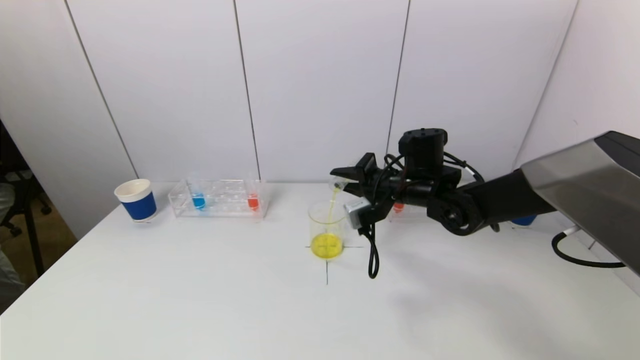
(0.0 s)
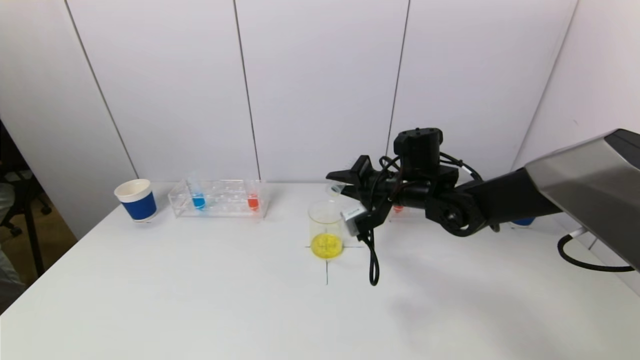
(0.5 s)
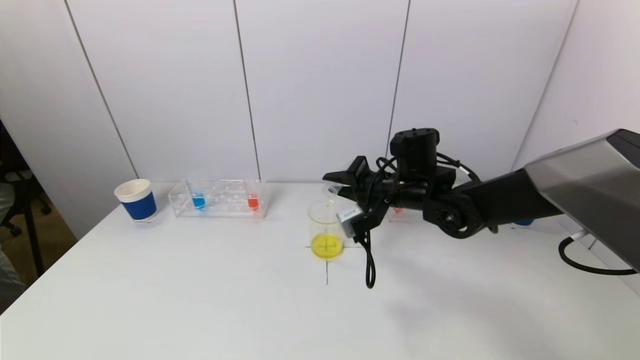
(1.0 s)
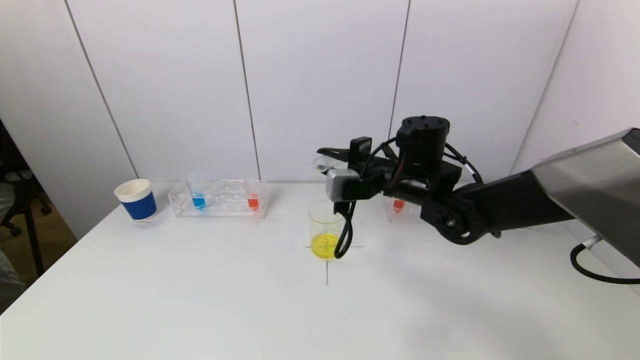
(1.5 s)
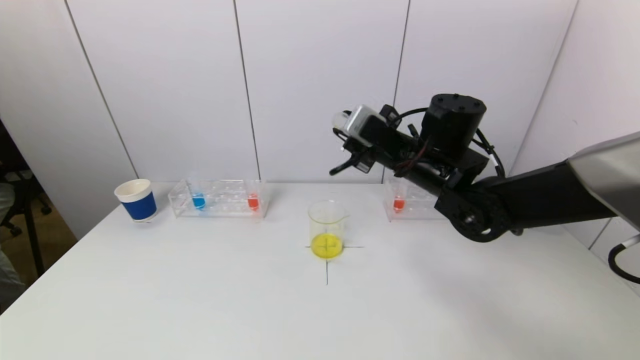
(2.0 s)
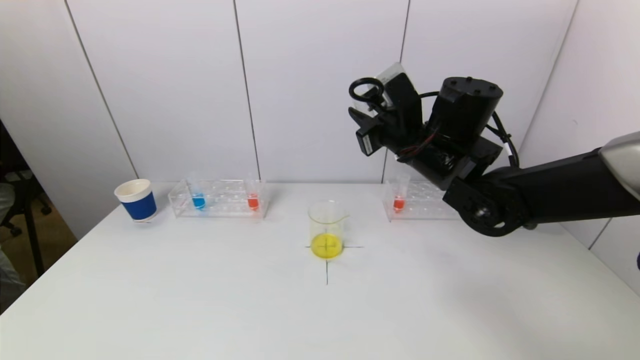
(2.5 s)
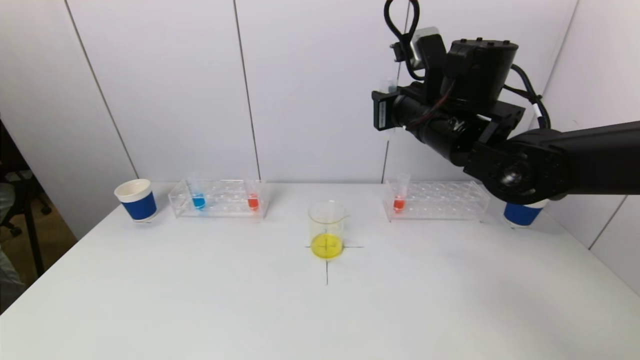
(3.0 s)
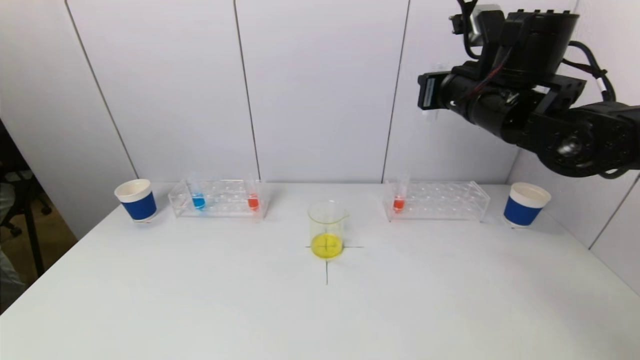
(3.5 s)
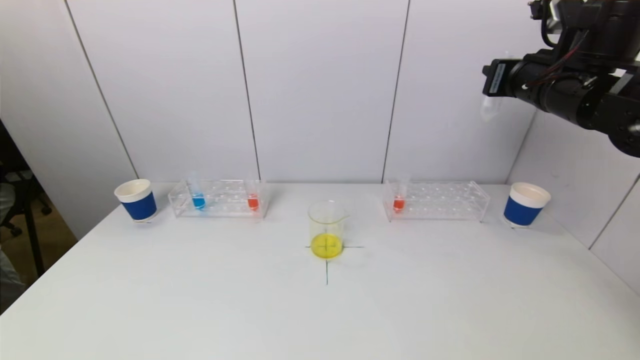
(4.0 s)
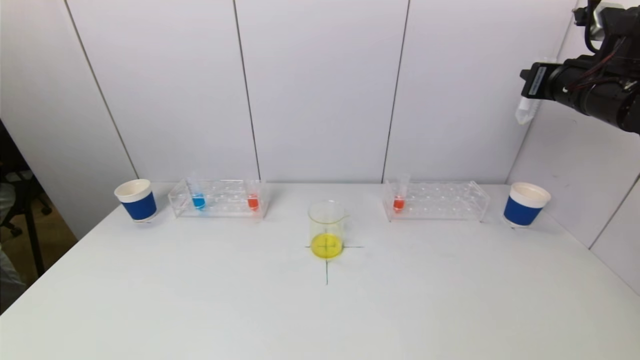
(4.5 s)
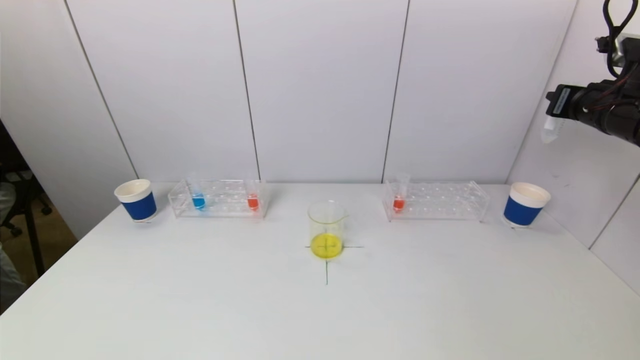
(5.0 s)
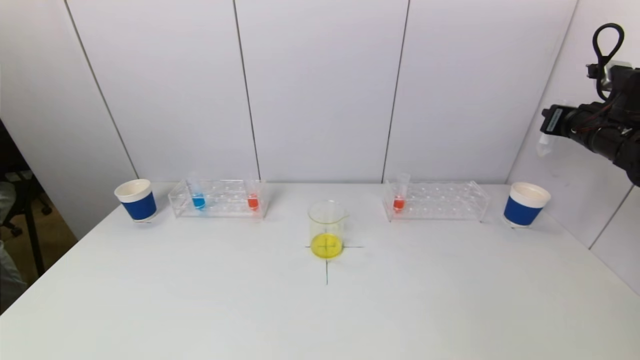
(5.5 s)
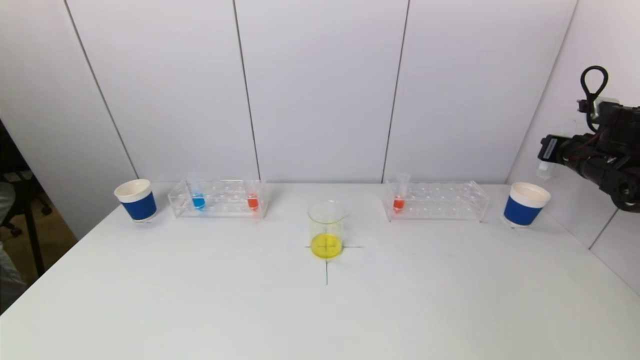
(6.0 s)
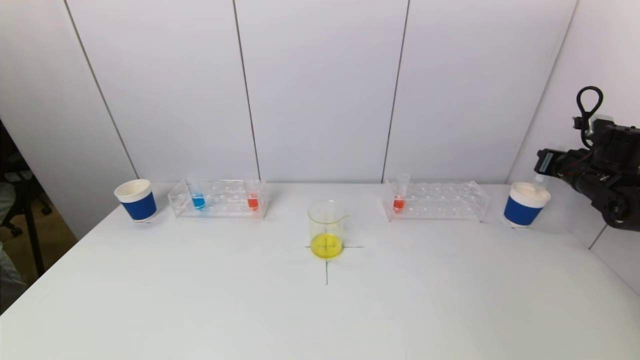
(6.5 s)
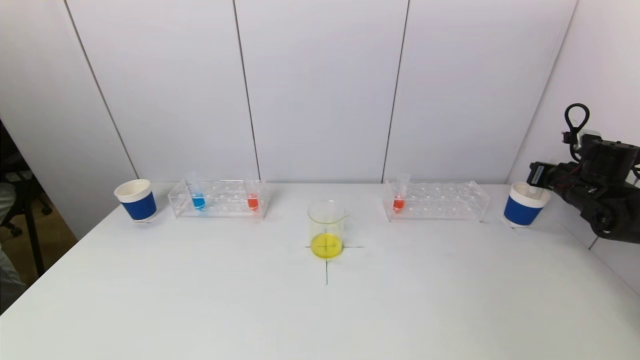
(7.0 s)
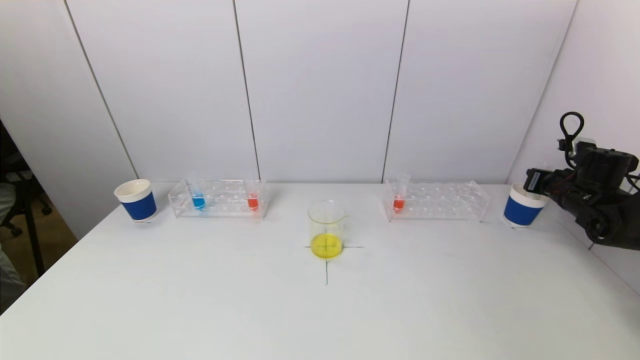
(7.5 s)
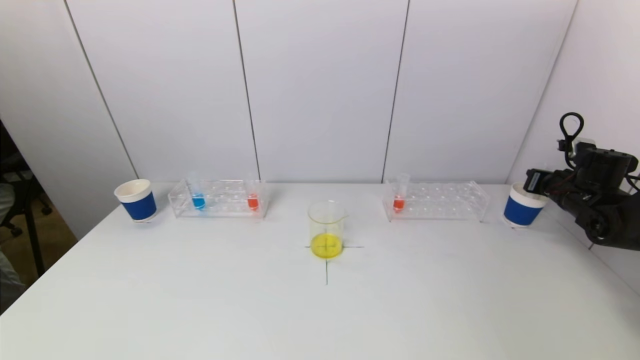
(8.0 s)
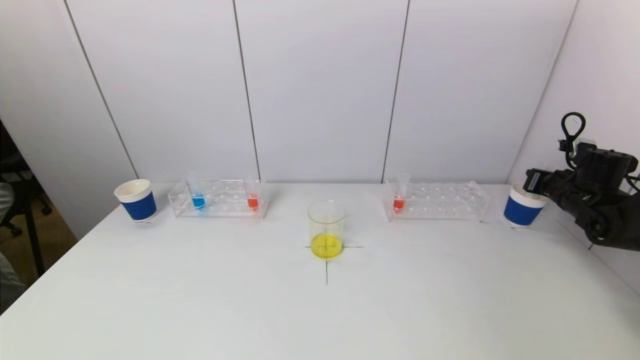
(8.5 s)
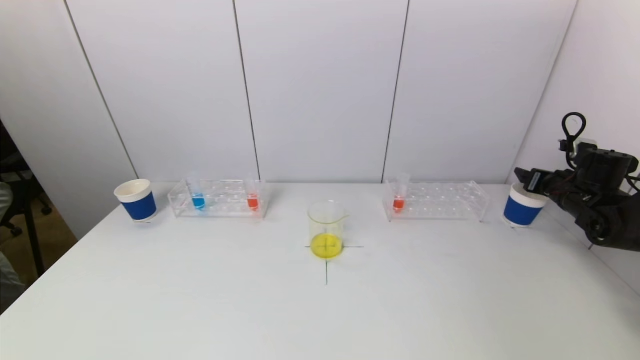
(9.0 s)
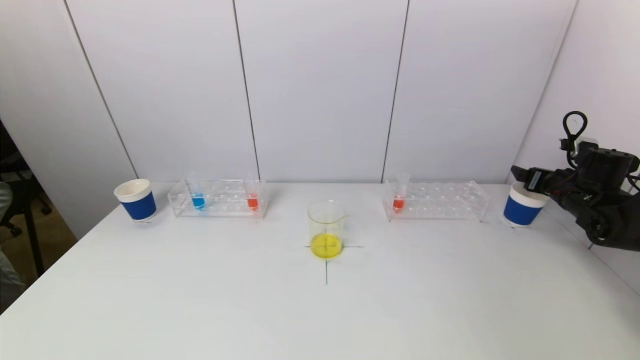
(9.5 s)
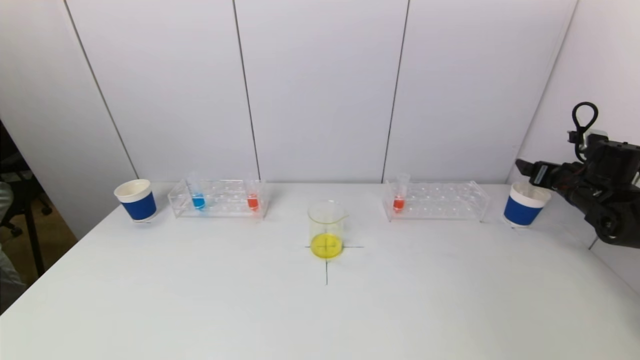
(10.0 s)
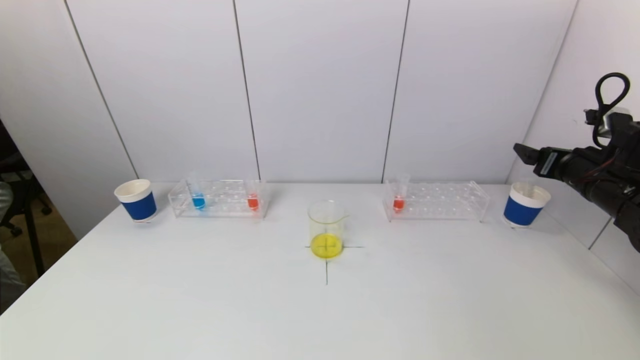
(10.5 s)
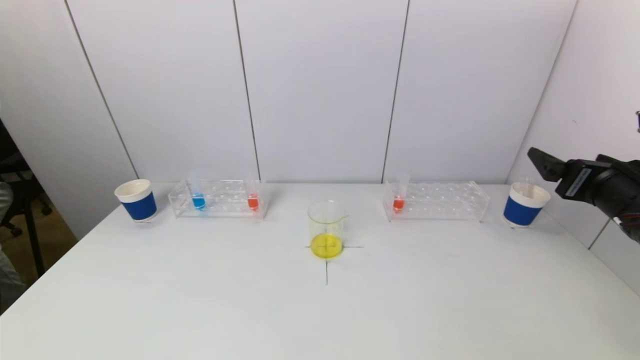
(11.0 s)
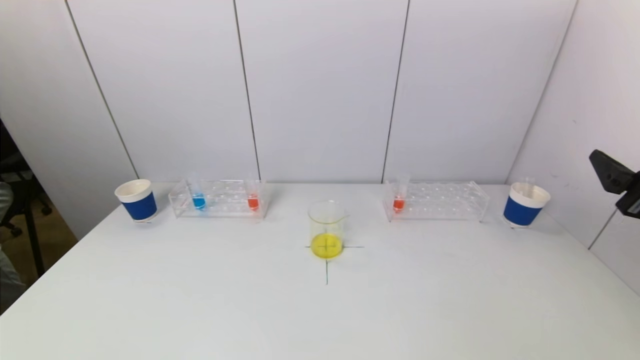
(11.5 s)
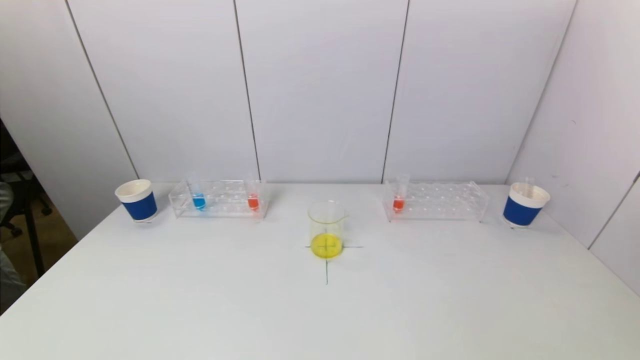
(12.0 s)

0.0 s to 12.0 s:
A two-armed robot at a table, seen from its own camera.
Task of the whole recording: pick up a test tube with pigment on left test tube rack and a test tube with pigment on right test tube rack by grippers and pour them into the beaker.
Step, 0.5 to 9.5 s: Place the test tube into the paper cup with the right gripper.
0.0 to 2.0 s: The right gripper goes roughly 10 cm upward.
2.0 to 4.0 s: The right gripper travels to the right and upward by approximately 20 cm.
4.0 to 6.0 s: The right gripper moves to the right and downward, roughly 20 cm.
6.0 to 8.0 s: The right gripper travels downward by roughly 5 cm.
8.0 to 10.0 s: The right gripper opens its fingers.
10.0 to 12.0 s: The right gripper is displaced backward by approximately 30 cm.

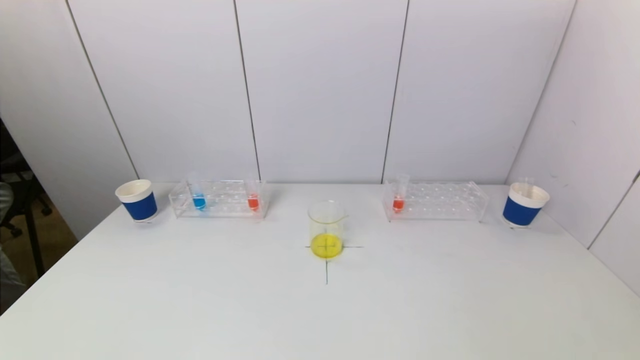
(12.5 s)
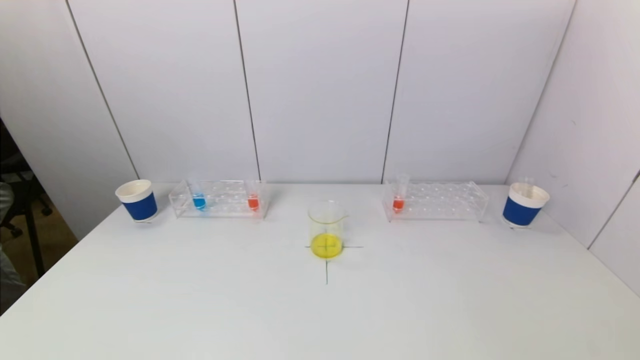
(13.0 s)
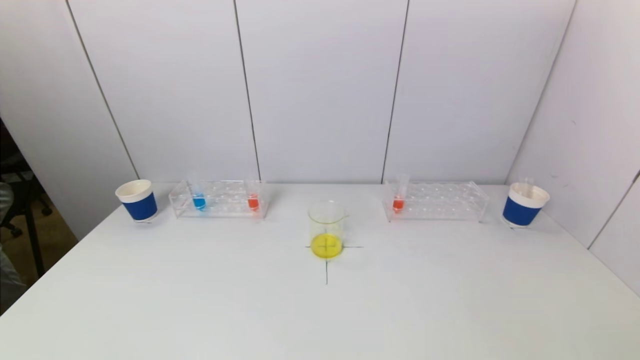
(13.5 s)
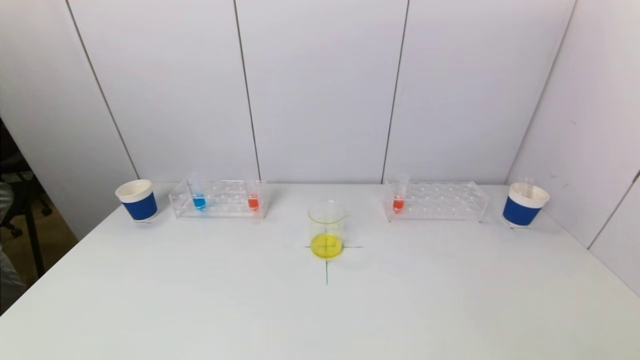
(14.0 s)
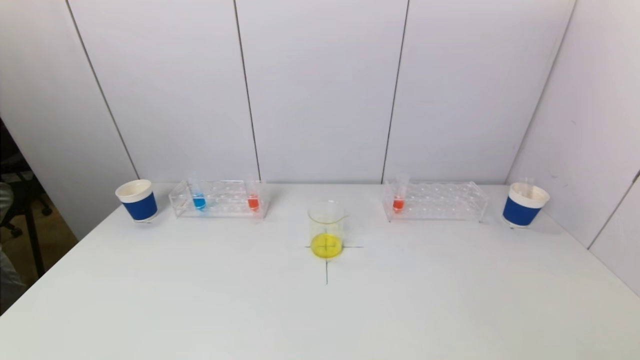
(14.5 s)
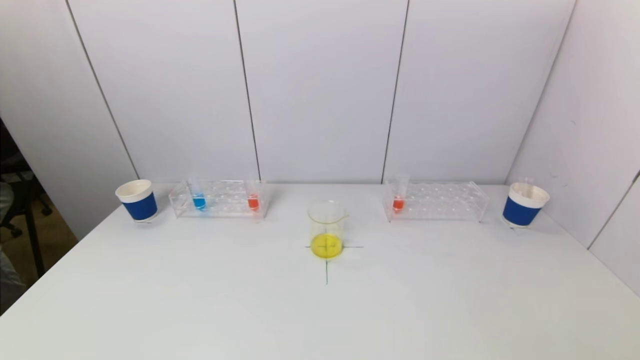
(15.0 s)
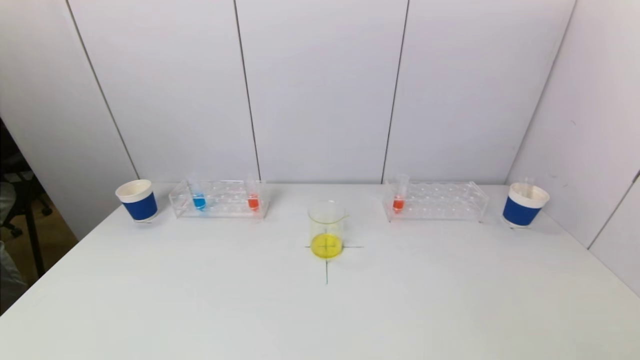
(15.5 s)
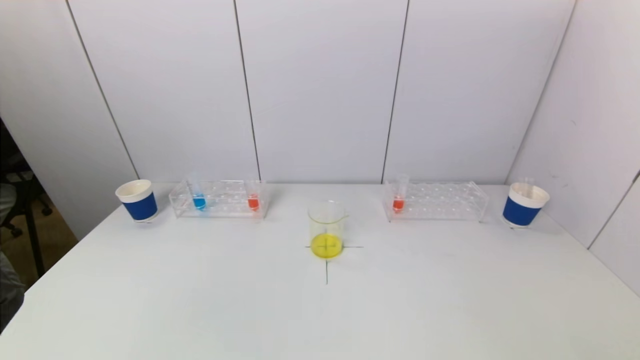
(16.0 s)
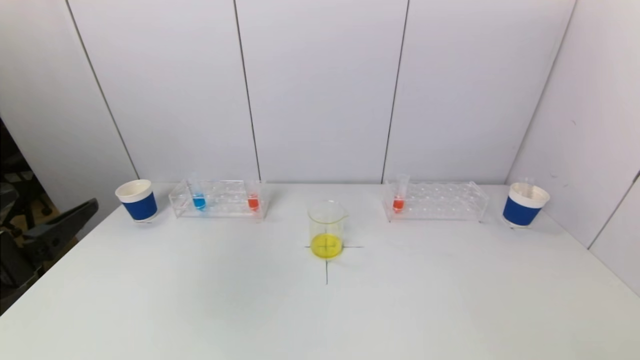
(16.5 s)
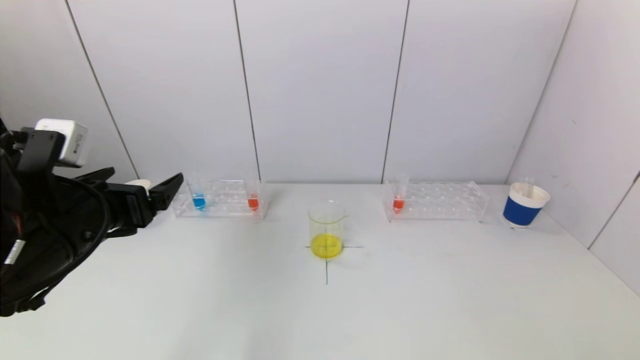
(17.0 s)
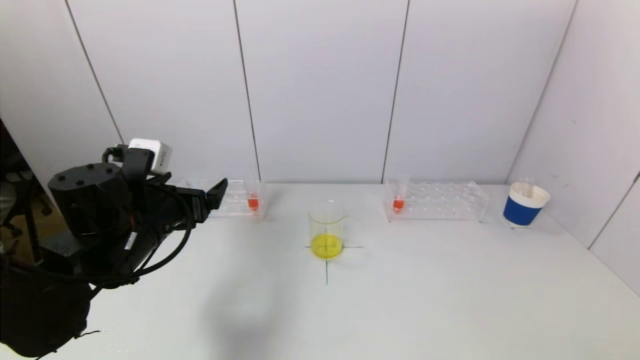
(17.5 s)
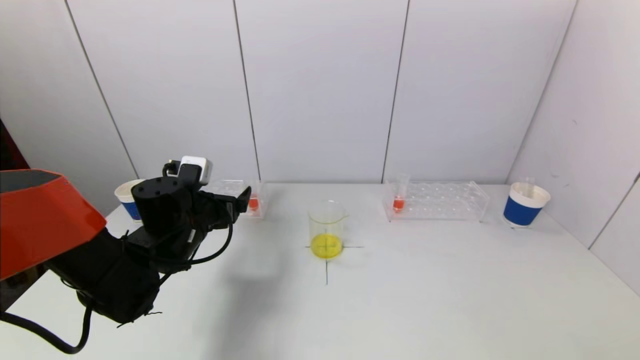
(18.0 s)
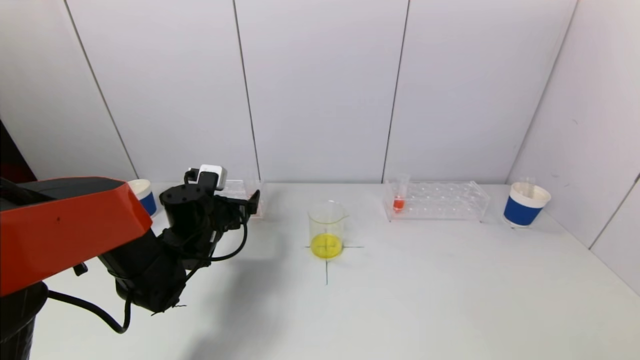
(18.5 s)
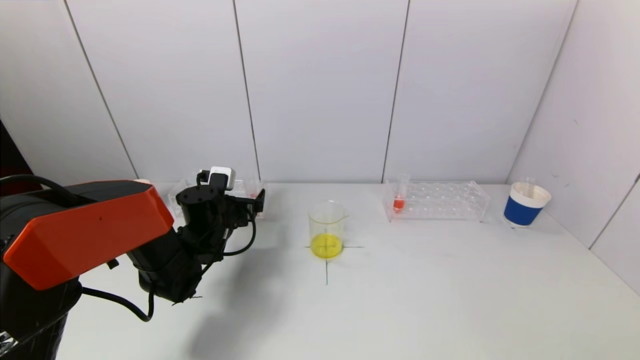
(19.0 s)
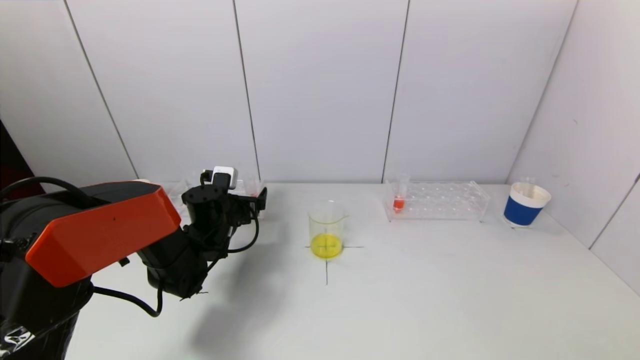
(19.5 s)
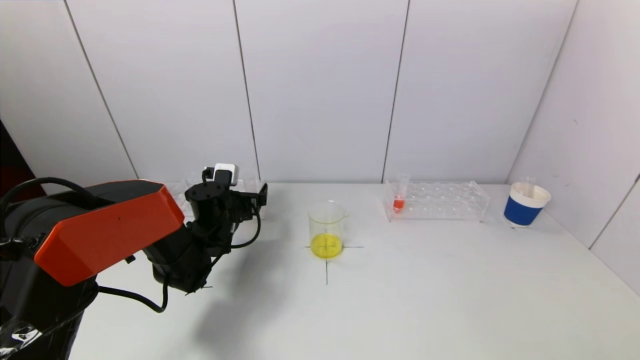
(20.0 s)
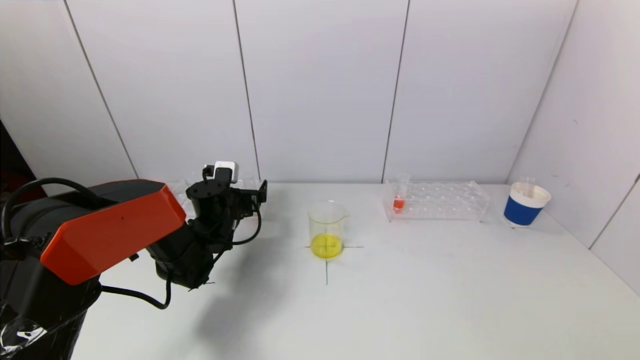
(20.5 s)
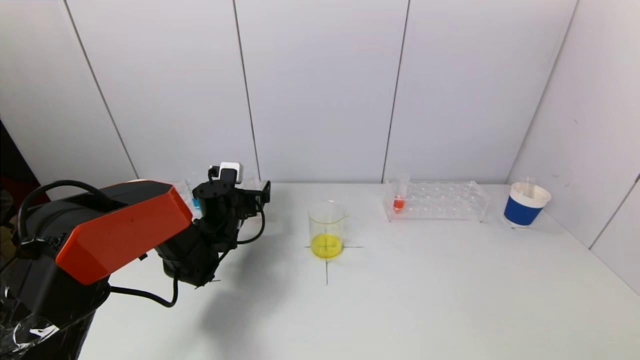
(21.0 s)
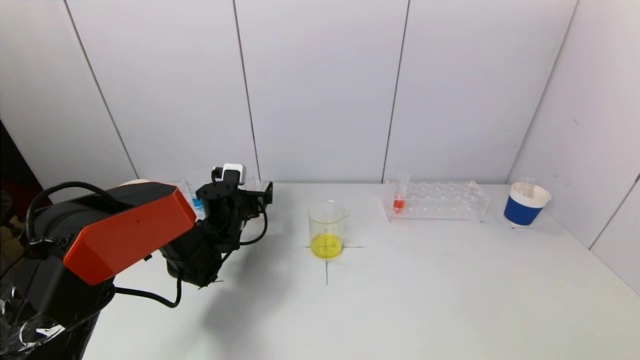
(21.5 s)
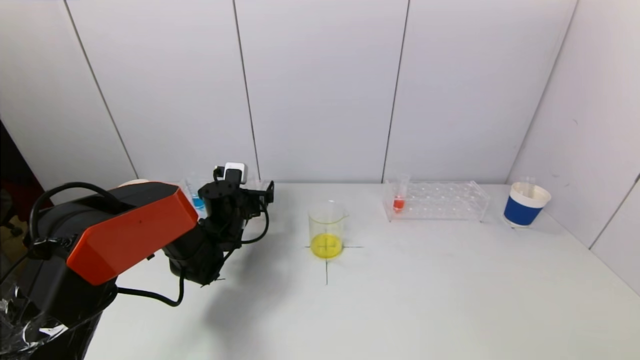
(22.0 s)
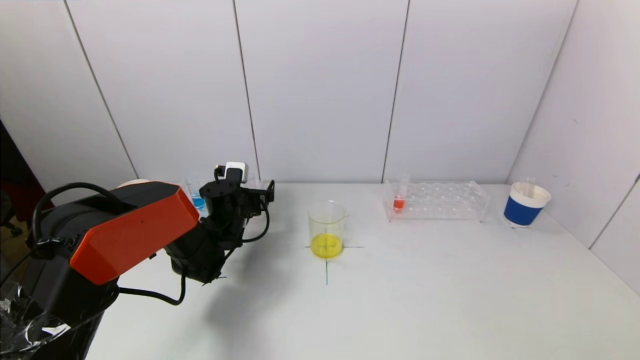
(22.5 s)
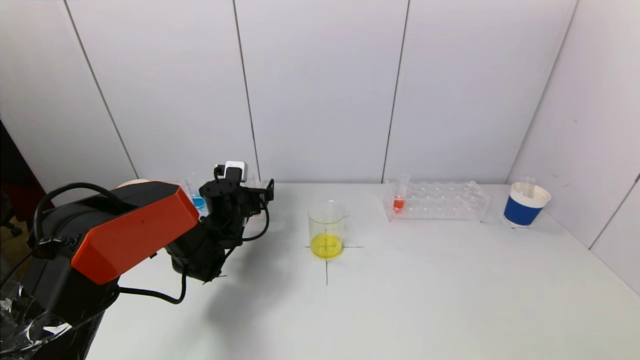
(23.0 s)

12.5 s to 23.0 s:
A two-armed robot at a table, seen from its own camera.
Task of the whole recording: pick up a test tube with pigment on left test tube rack and a test tube with pigment on right test tube rack by grippers and pour them into the beaker.
14.5 to 16.5 s: The left gripper is displaced upward and forward by about 20 cm.
16.5 to 19.0 s: The left gripper is displaced forward, downward and to the right by approximately 35 cm.
19.0 to 21.0 s: The grippers move only a little.
21.0 to 23.0 s: Both grippers stay put.
